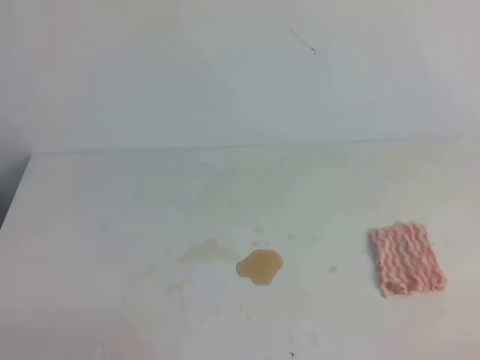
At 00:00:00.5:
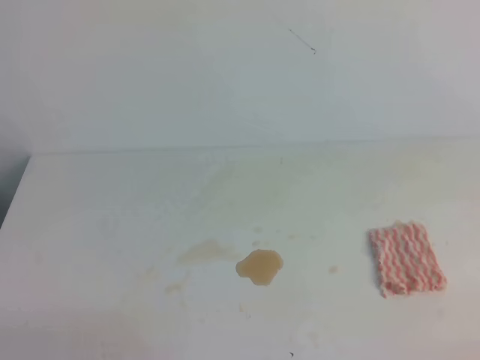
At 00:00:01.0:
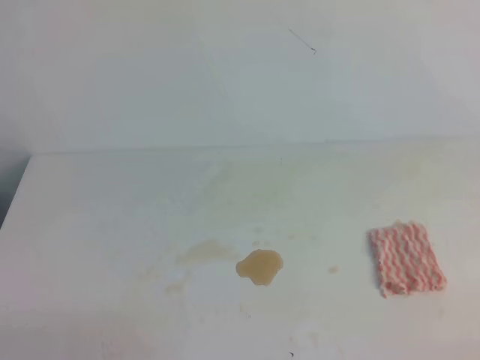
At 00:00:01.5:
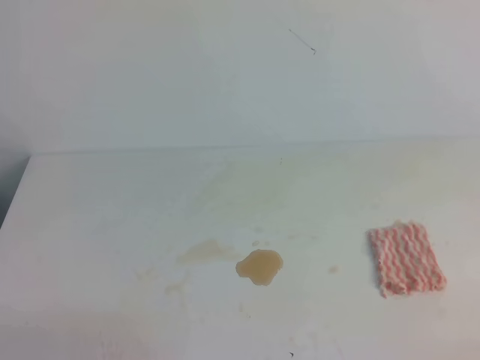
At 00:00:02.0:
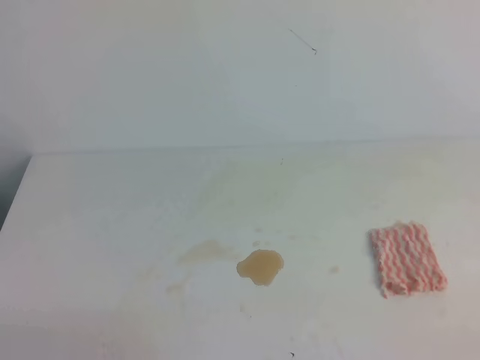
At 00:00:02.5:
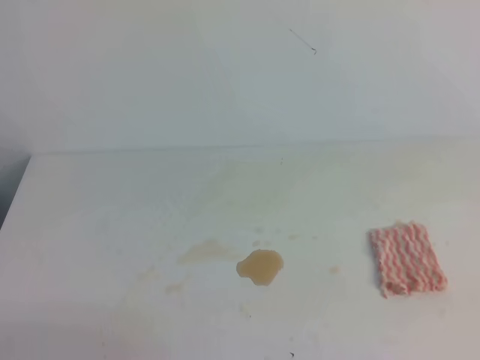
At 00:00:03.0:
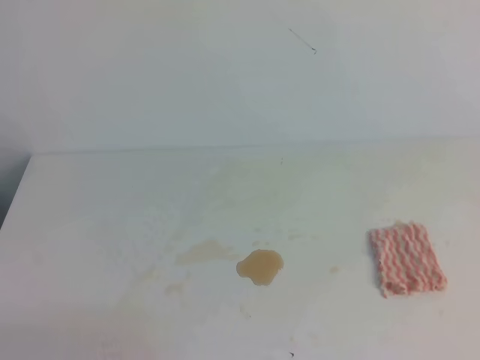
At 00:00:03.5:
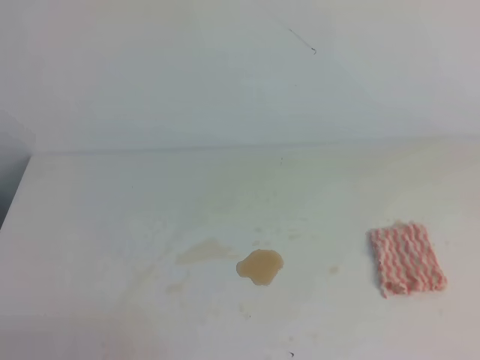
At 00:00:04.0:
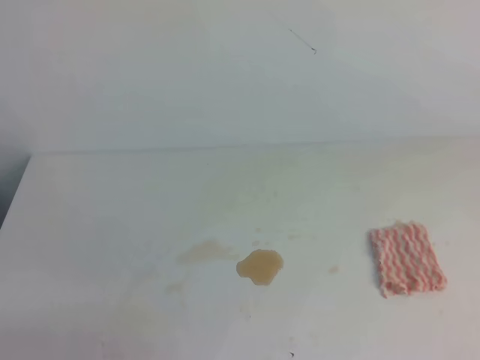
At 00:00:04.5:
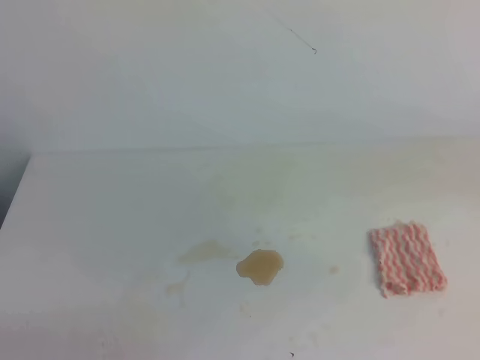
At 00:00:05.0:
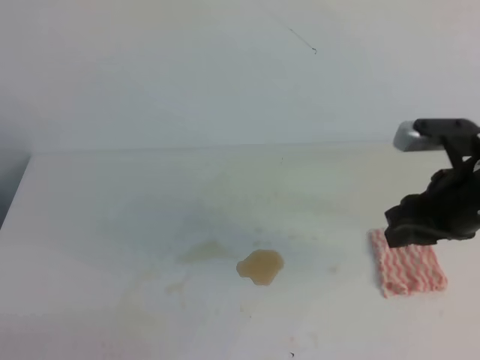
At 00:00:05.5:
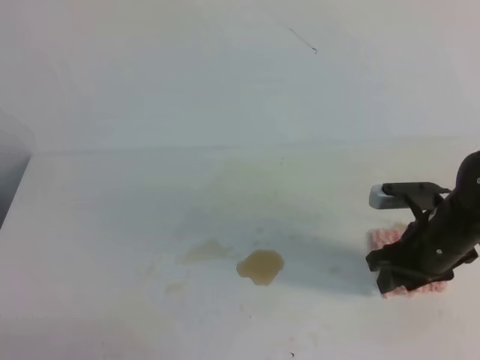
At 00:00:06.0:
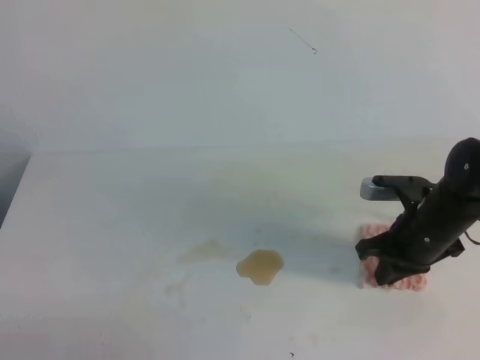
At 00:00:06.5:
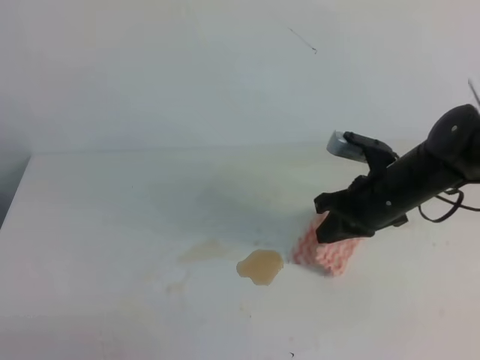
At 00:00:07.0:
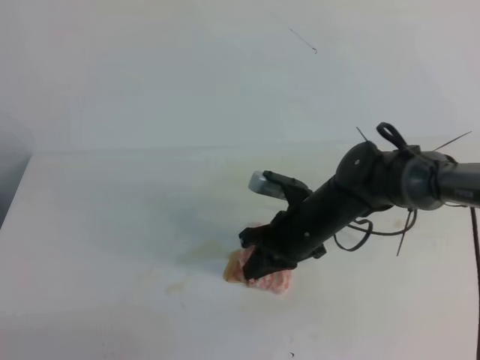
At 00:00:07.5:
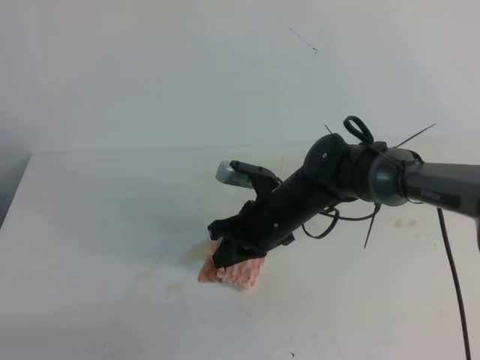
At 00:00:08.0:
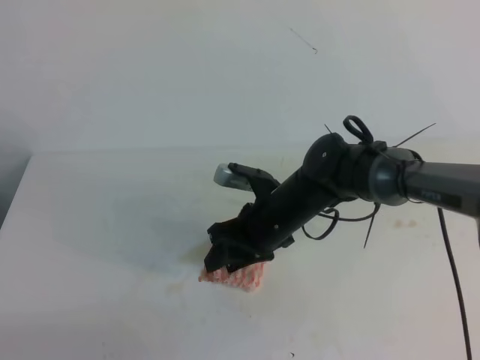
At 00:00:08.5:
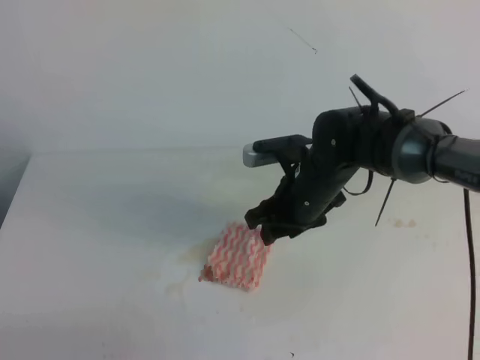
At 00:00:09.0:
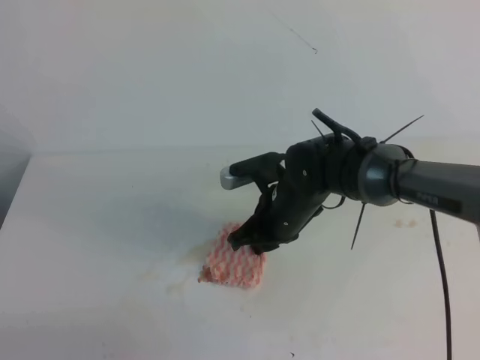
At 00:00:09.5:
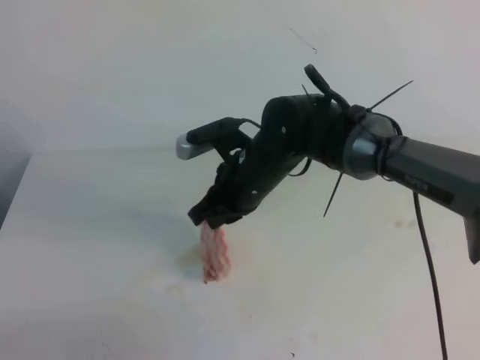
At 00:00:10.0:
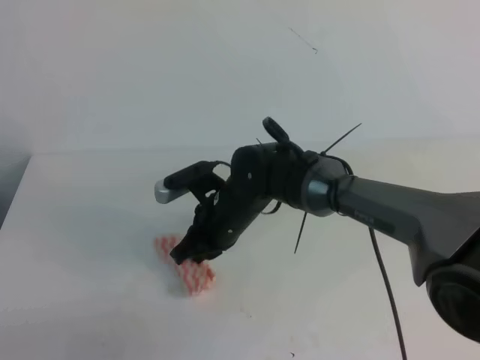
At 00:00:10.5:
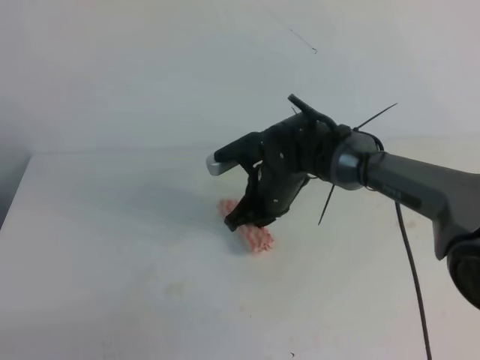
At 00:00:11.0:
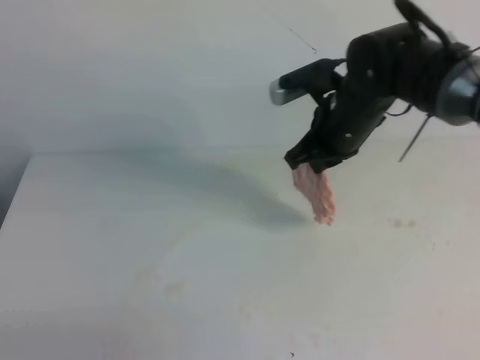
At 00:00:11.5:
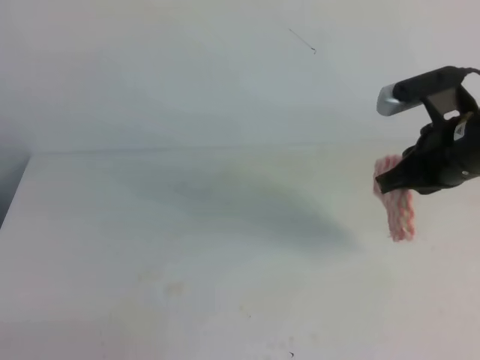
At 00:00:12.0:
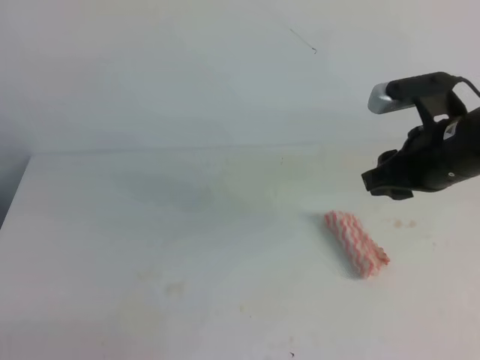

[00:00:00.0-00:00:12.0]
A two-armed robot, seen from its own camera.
00:00:04.0 to 00:00:06.0: The right gripper goes about 35 cm downward and forward, and opens, then closes once more.
00:00:06.0 to 00:00:08.0: The right gripper is displaced to the left by about 15 cm, and opens.
00:00:08.0 to 00:00:10.0: The right gripper shifts approximately 5 cm to the left, and closes up.
00:00:10.0 to 00:00:12.0: The right gripper travels to the right and upward by roughly 25 cm, and opens its fingers.

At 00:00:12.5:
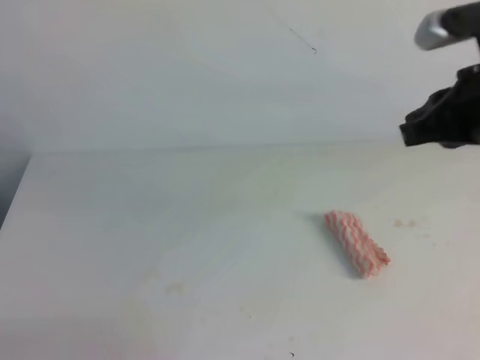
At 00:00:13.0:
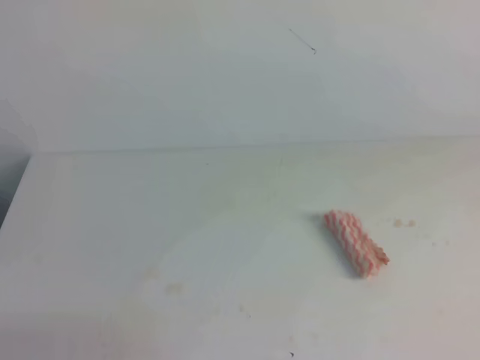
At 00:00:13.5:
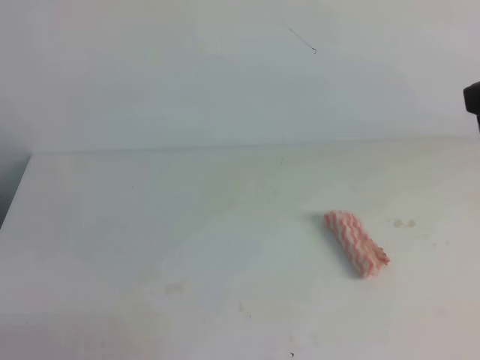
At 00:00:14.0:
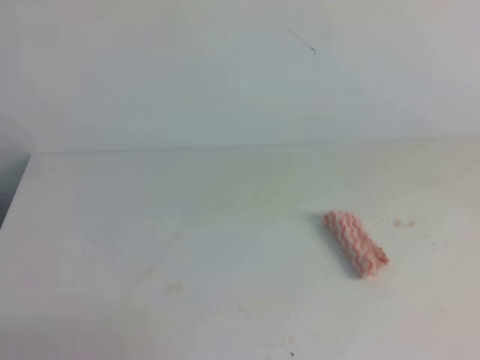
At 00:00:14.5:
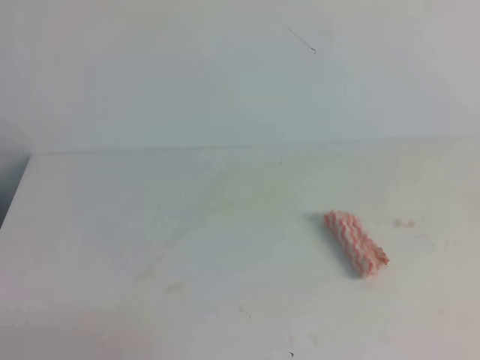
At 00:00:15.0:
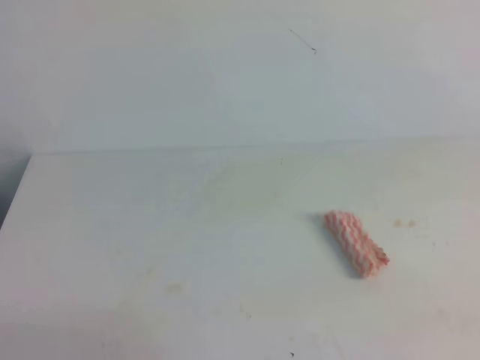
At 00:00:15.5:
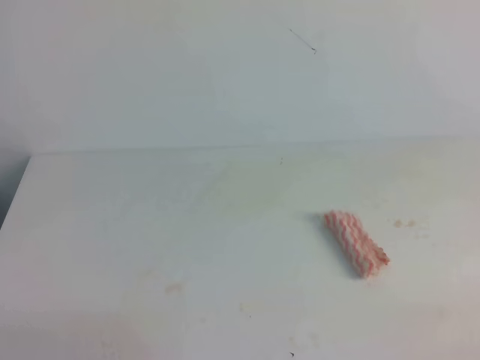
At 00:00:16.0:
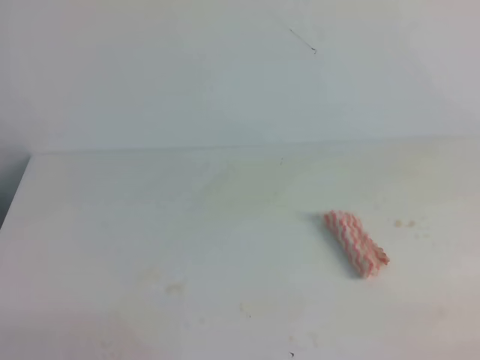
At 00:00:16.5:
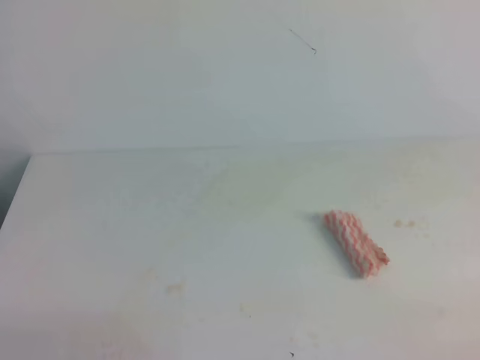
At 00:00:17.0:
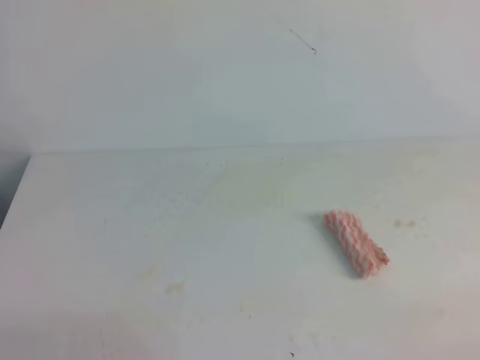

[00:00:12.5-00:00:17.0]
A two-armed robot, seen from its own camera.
00:00:12.5 to 00:00:14.5: The right gripper heads backward, covering approximately 25 cm.
